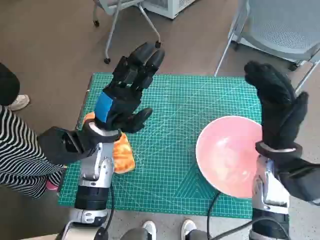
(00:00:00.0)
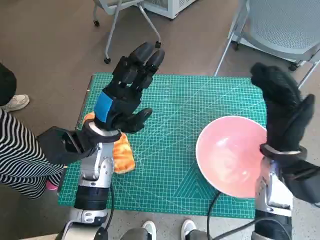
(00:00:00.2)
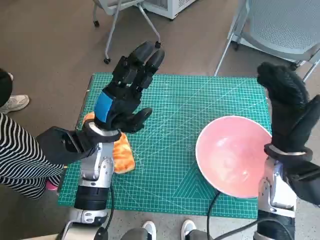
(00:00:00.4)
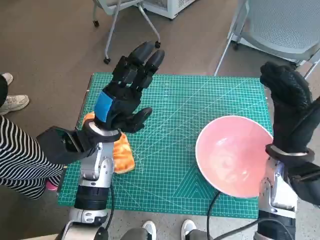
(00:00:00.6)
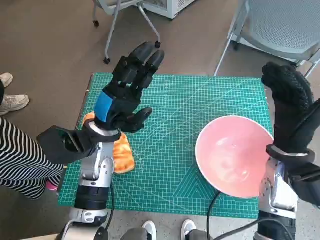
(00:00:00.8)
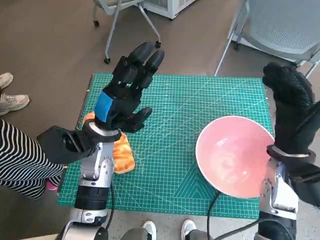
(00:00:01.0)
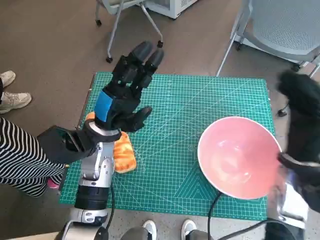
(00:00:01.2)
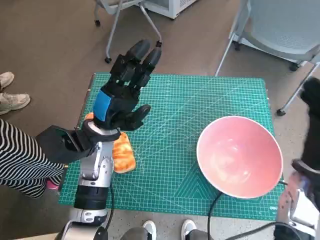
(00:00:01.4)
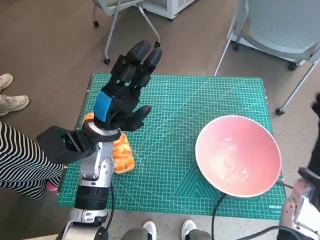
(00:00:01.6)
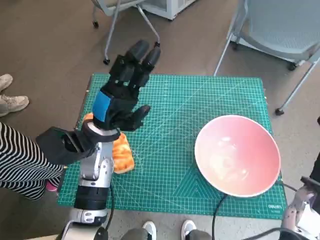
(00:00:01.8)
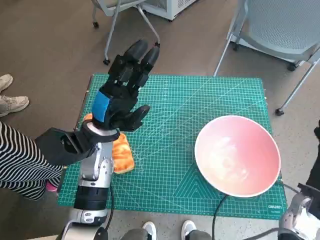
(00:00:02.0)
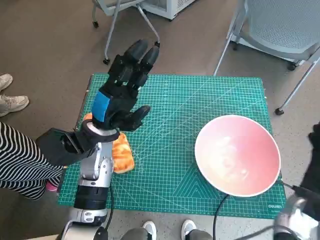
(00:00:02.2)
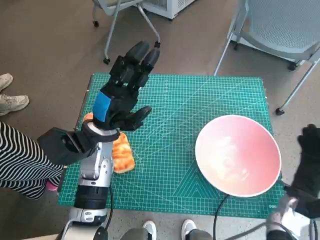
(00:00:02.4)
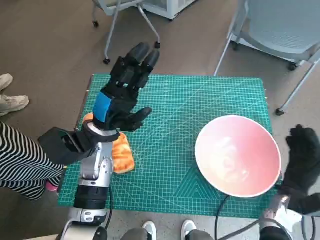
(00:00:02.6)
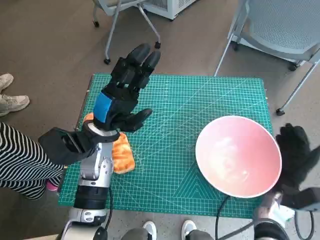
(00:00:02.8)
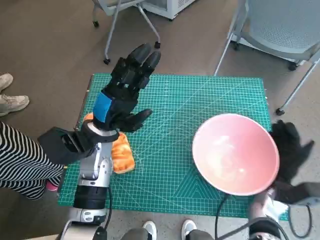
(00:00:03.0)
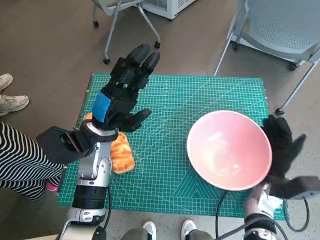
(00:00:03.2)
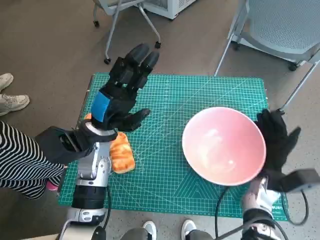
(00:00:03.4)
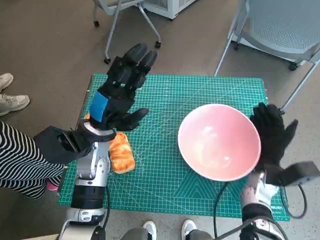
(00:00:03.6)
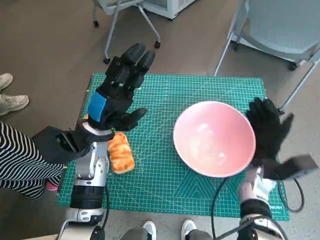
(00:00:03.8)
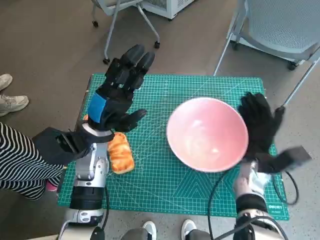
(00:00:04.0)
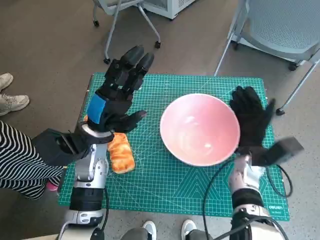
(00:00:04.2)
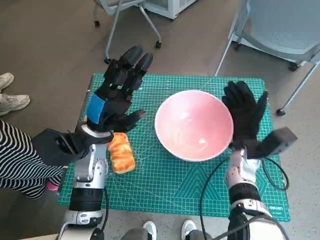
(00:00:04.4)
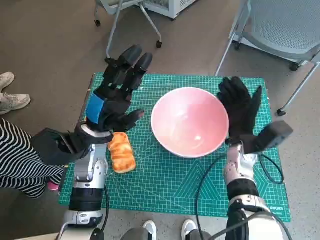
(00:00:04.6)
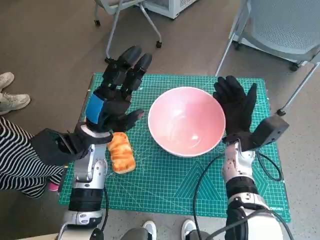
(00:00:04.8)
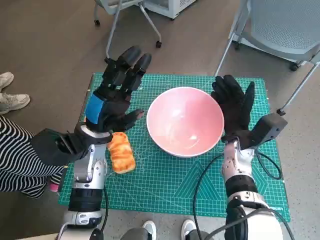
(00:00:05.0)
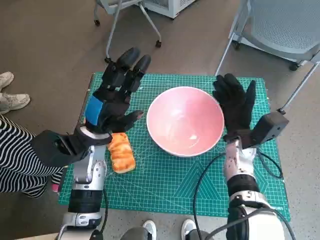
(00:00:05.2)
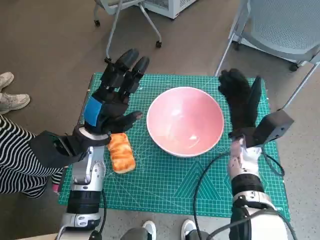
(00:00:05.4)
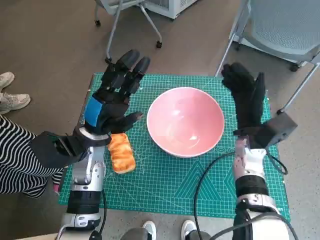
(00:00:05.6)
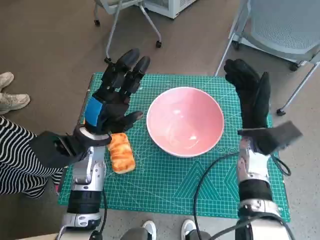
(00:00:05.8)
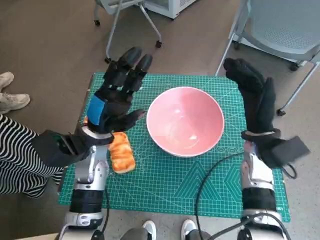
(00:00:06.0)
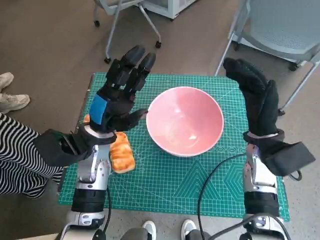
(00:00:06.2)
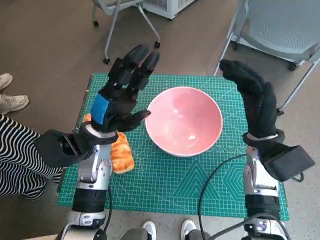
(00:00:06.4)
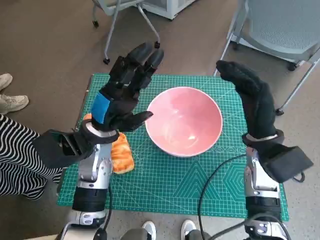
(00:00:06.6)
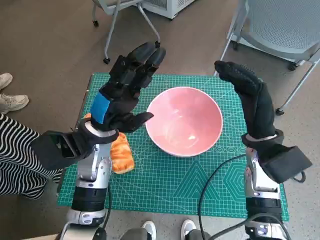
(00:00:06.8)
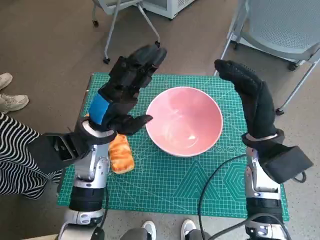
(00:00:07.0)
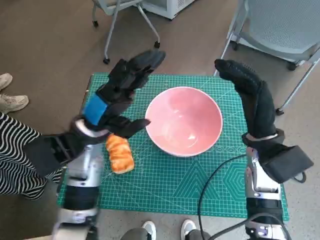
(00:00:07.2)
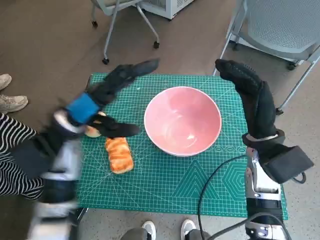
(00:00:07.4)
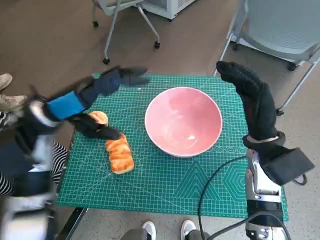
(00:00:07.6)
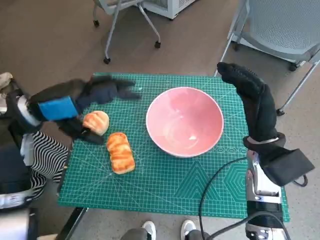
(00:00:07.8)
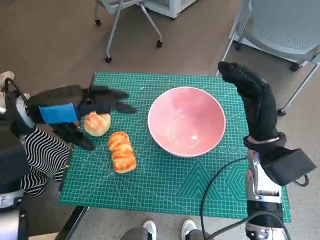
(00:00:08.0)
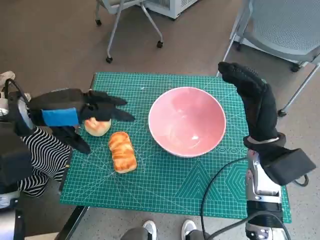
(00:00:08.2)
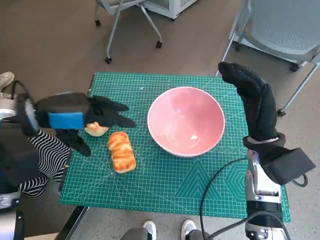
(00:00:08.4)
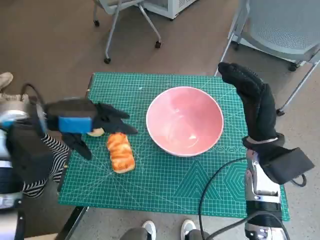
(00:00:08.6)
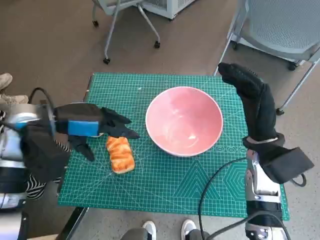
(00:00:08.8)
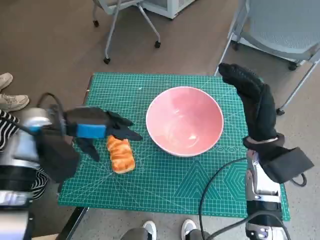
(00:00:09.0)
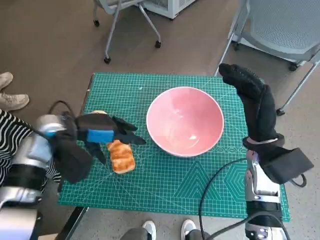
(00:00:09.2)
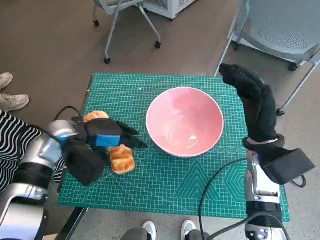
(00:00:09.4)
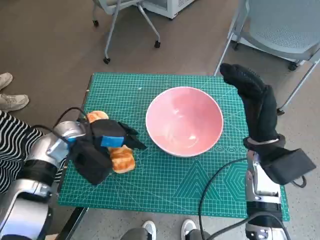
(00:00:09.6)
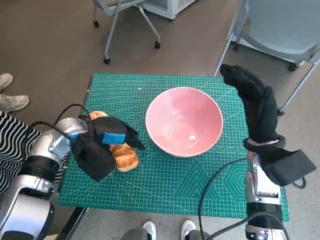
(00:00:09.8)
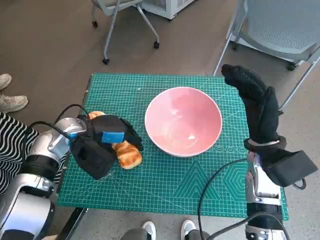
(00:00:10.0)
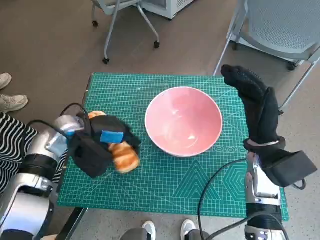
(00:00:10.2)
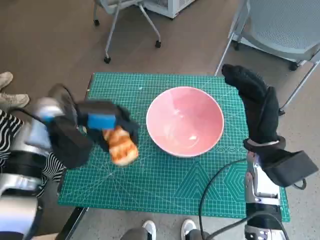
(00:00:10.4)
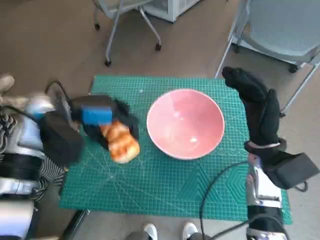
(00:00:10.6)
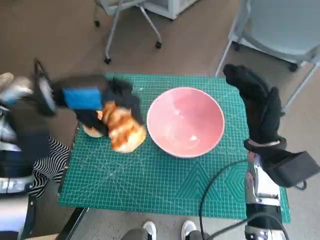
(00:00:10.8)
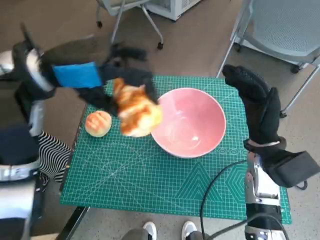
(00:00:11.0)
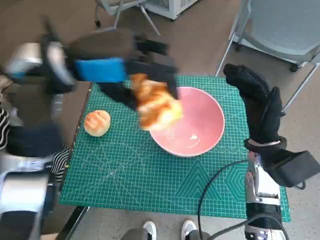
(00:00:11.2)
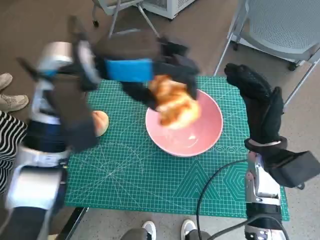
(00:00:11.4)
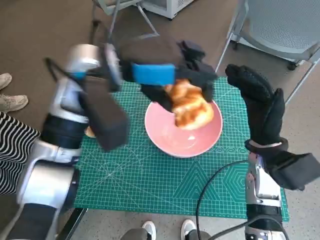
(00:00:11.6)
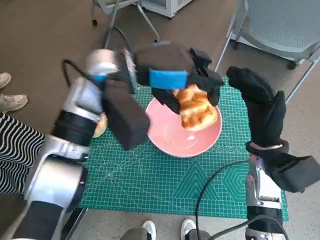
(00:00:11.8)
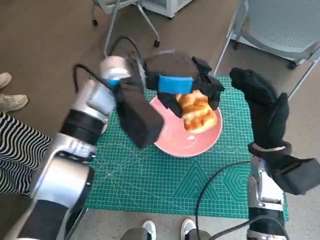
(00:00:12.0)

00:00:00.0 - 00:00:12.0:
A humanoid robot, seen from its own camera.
Task of the whole recording: Push the bowl into the center of the table and put the bread into the bowl.
Step, 00:00:00.0 - 00:00:05.4: Move the pink bowl to the center of table with right hand.
Step, 00:00:05.6 - 00:00:09.8: Grasp the long bread with left hand.
00:00:01.6 - 00:00:03.0: The right hand heads downward, covering approximately 10 cm.
00:00:03.0 - 00:00:04.4: The right hand is displaced forward, to the left and upward by approximately 10 cm.
00:00:04.4 - 00:00:06.0: The right hand goes some 5 cm upward.
00:00:06.0 - 00:00:07.6: The left hand moves upward and to the left, approximately 10 cm.
00:00:10.4 - 00:00:12.0: The left hand goes some 15 cm to the right and upward.

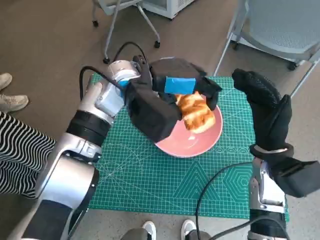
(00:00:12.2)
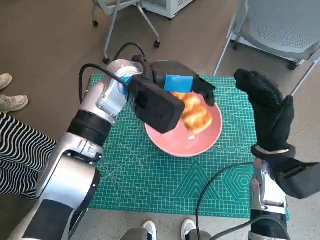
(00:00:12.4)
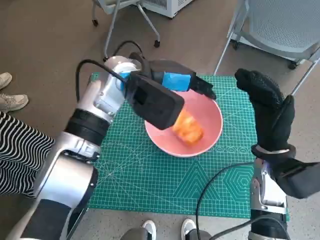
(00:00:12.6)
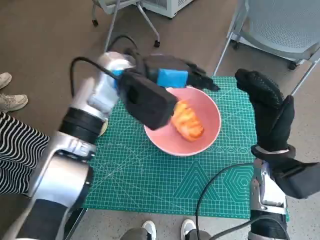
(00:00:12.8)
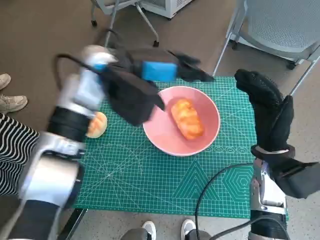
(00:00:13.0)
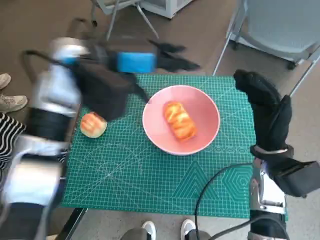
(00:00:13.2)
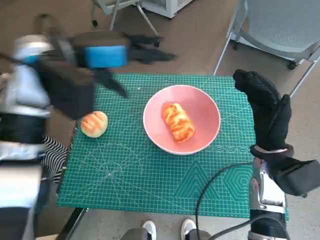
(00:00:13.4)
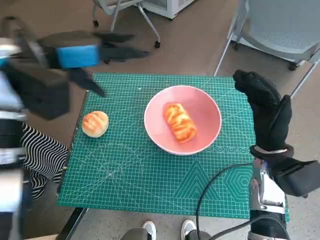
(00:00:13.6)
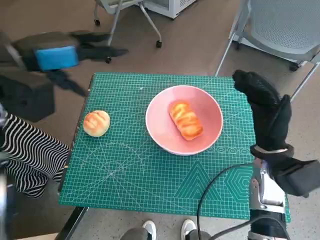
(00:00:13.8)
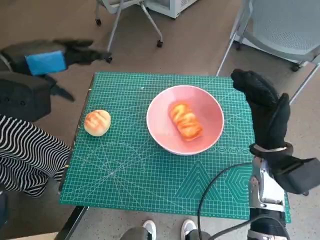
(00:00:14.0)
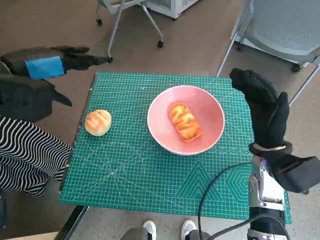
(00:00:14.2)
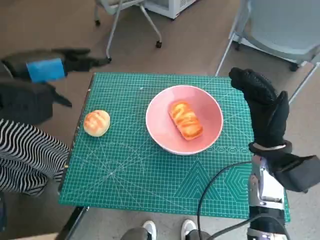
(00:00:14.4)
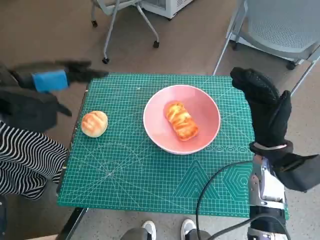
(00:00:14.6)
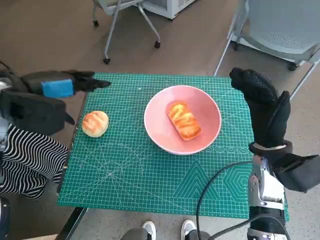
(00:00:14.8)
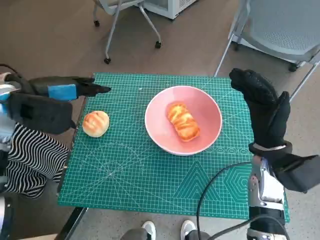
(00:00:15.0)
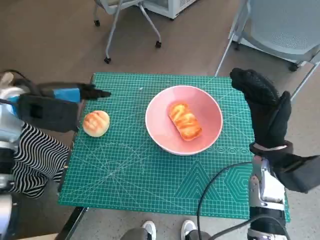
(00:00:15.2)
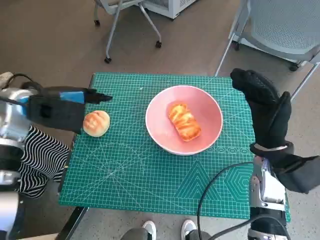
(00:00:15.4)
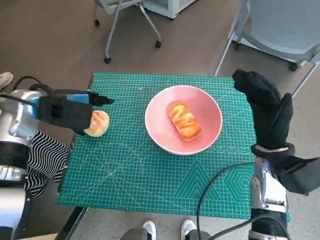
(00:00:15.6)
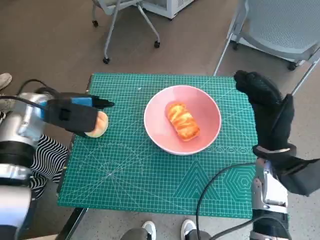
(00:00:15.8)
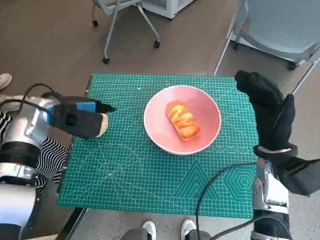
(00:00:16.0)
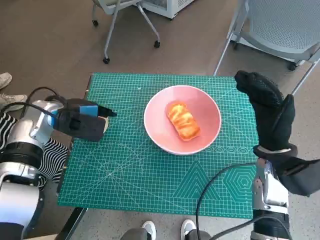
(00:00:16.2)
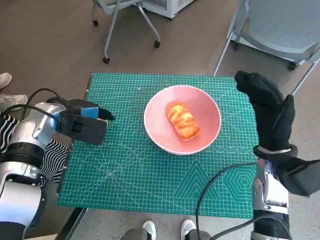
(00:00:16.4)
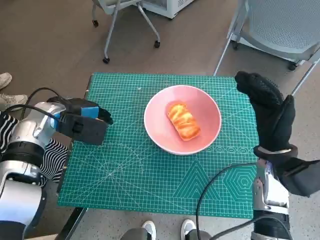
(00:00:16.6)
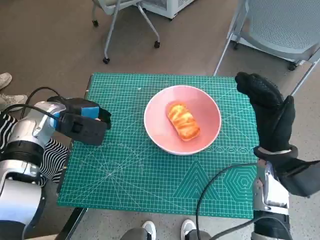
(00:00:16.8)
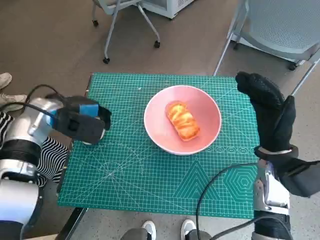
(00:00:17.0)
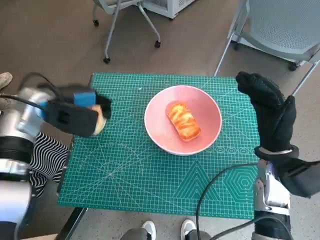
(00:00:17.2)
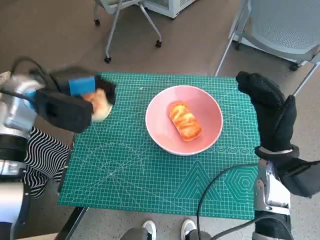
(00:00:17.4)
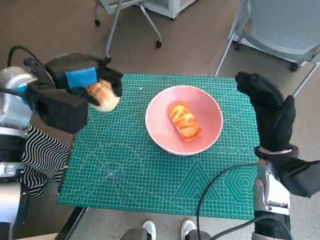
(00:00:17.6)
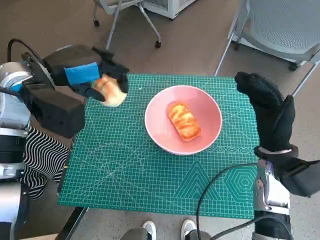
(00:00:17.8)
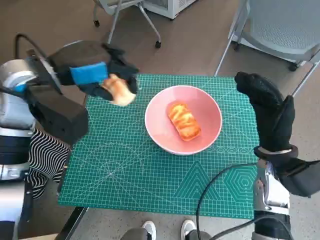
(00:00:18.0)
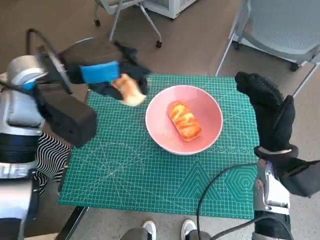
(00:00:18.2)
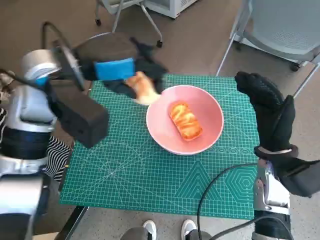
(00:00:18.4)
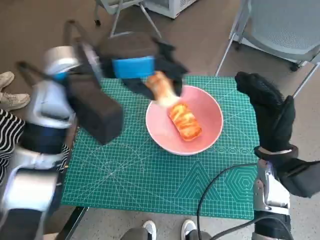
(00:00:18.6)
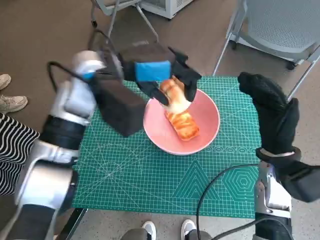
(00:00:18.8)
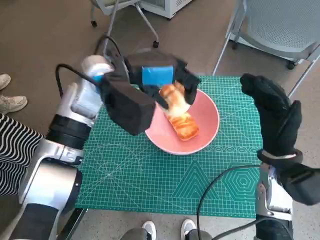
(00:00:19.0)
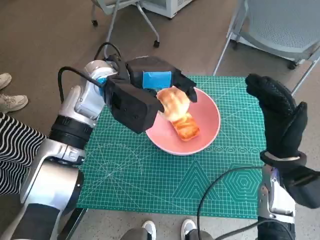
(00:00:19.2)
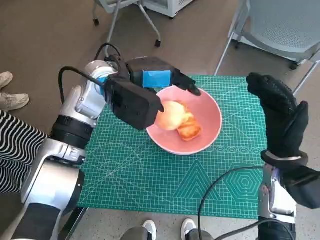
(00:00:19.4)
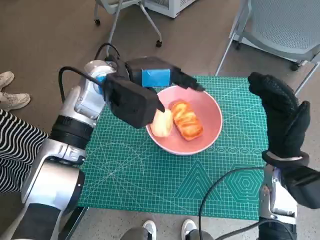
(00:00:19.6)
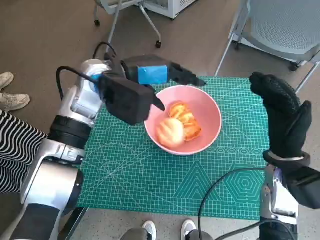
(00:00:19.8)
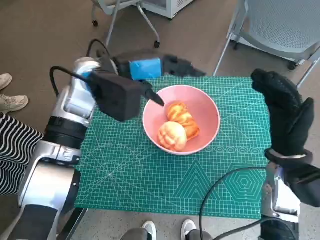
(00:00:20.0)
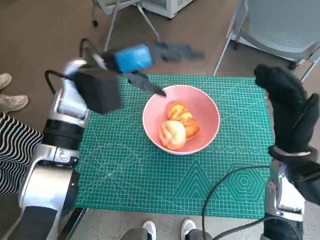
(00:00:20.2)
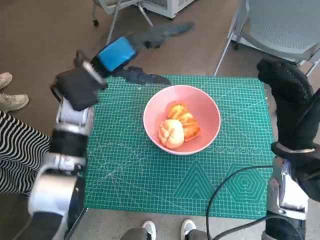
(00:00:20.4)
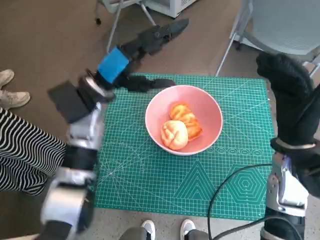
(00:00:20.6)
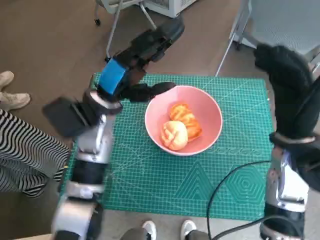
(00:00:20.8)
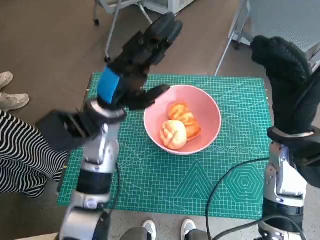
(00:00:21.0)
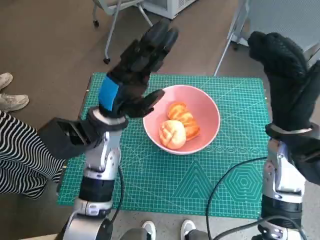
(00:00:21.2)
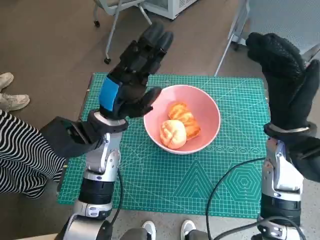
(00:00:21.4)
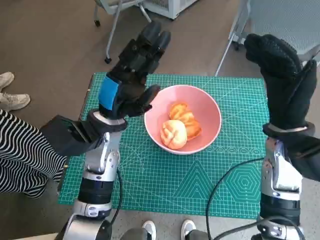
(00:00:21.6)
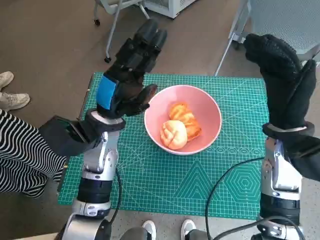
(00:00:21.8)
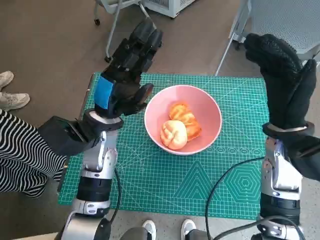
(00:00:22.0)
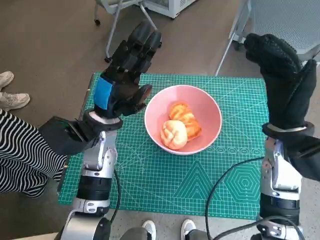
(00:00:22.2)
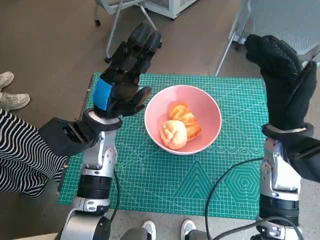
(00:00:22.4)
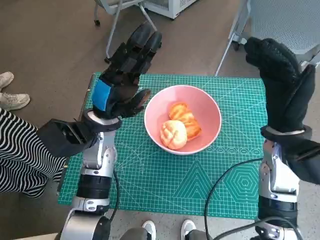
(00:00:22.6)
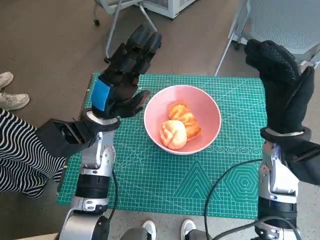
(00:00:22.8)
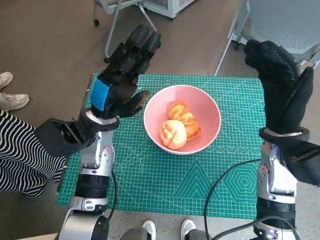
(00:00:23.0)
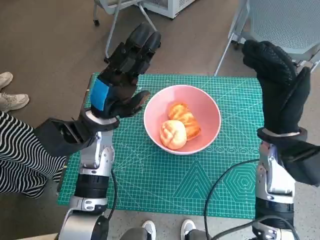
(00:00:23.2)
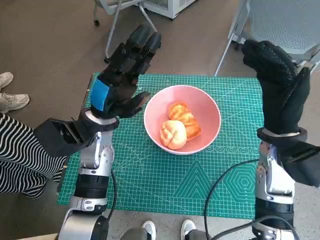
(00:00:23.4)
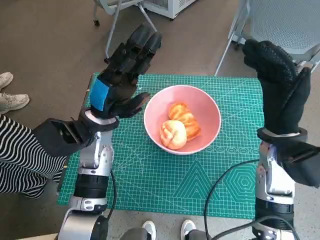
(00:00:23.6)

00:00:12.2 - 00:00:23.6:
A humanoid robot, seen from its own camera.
Task of the whole recording: Push the bowl into the center of the table and put the bread into the bowl.
Step, 00:00:12.8 - 00:00:17.0: Grasp the round bread with left hand.
Step, 00:00:17.2 - 00:00:20.0: Place the round bread in pink bowl with left hand.
00:00:12.2 - 00:00:13.6: The left hand heads to the left and upward, covering approximately 15 cm.
00:00:13.6 - 00:00:15.0: The left hand shifts some 10 cm downward and to the left.
00:00:15.0 - 00:00:16.4: The left hand shifts approximately 10 cm downward.
00:00:16.4 - 00:00:17.8: The left hand travels upward by roughly 10 cm.
00:00:17.8 - 00:00:19.4: The left hand goes some 10 cm to the right.
00:00:19.4 - 00:00:20.8: The left hand ends up about 5 cm from where it was.
00:00:22.2 - 00:00:23.6: Neither hand changes place.
